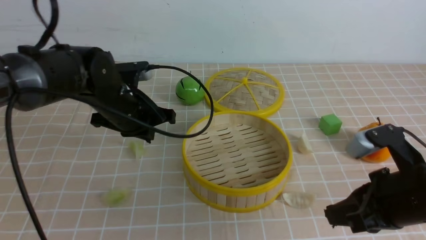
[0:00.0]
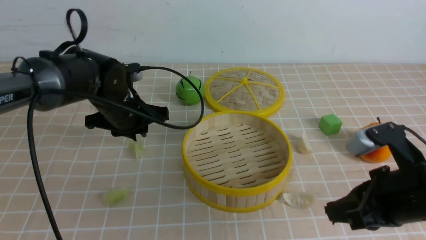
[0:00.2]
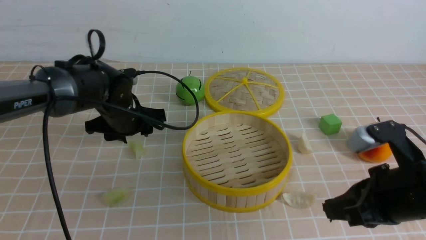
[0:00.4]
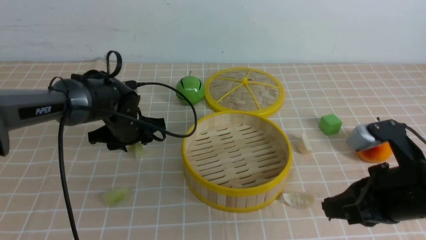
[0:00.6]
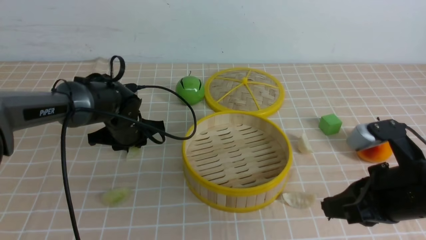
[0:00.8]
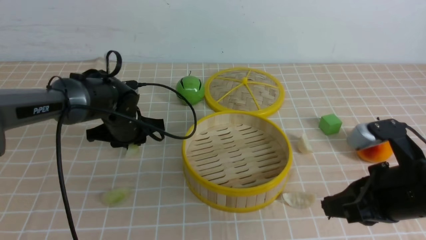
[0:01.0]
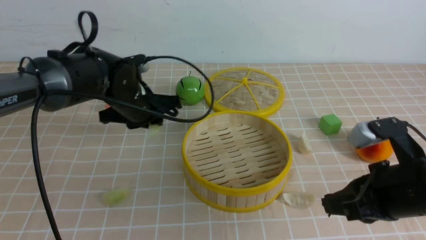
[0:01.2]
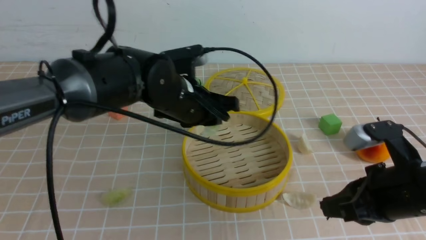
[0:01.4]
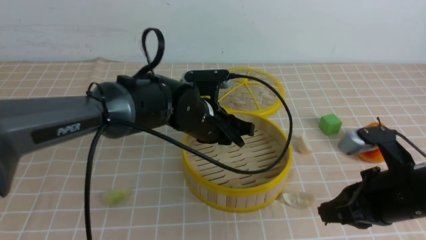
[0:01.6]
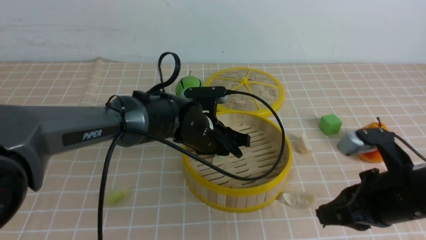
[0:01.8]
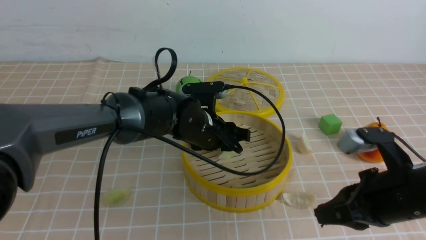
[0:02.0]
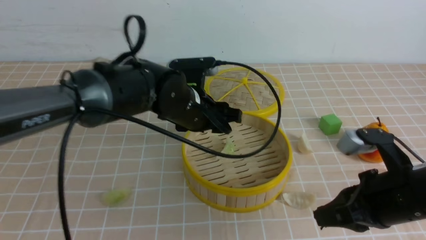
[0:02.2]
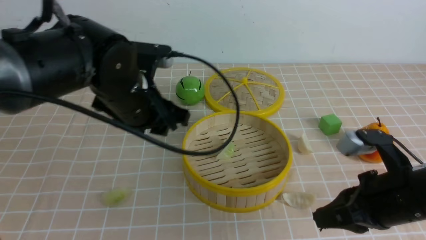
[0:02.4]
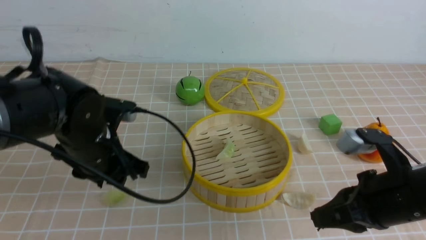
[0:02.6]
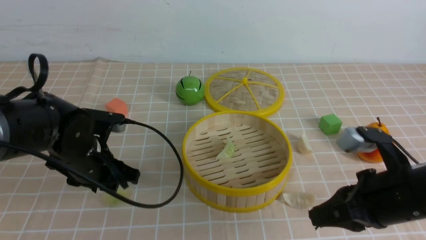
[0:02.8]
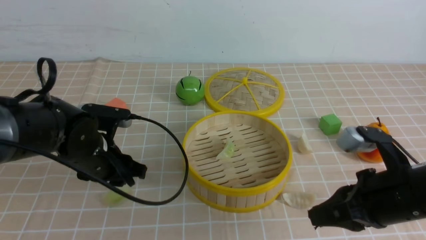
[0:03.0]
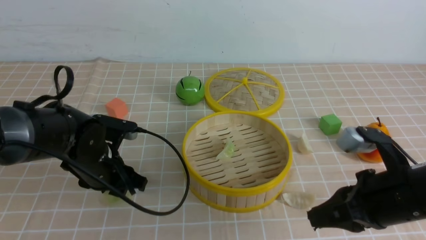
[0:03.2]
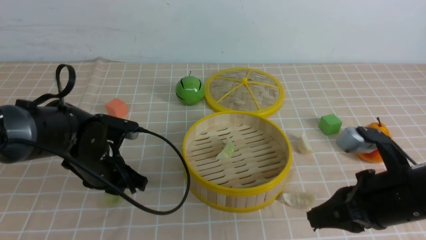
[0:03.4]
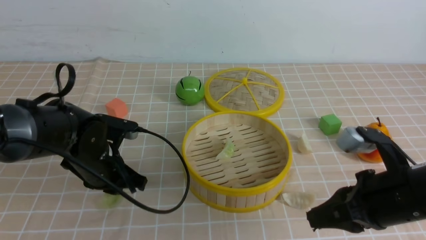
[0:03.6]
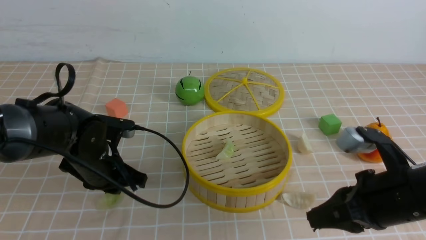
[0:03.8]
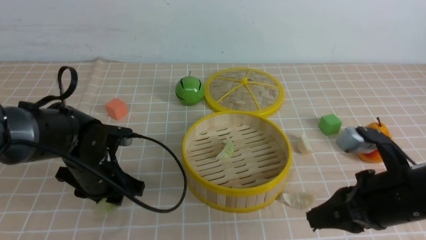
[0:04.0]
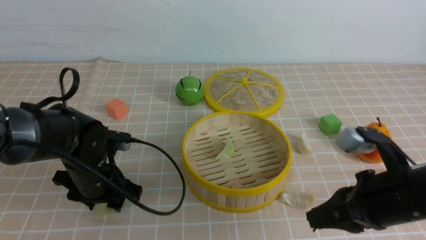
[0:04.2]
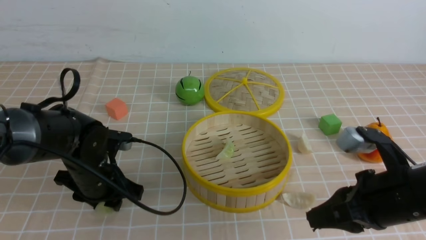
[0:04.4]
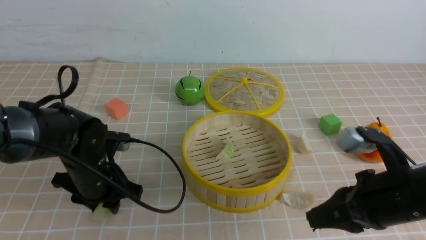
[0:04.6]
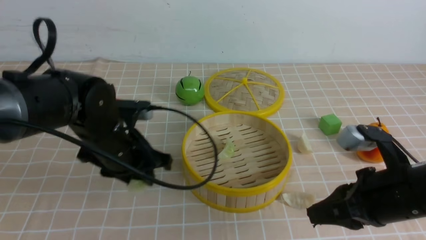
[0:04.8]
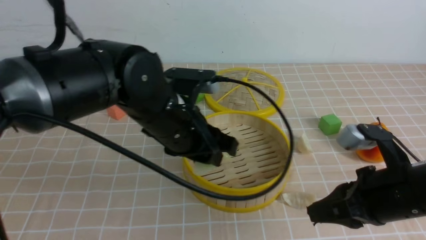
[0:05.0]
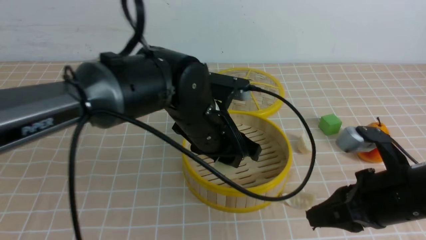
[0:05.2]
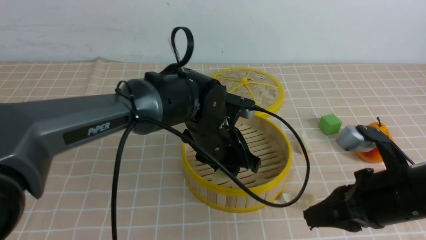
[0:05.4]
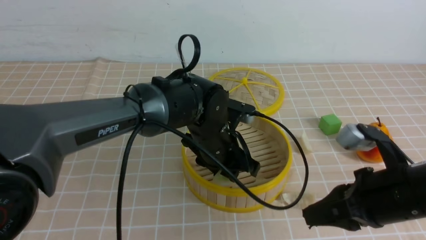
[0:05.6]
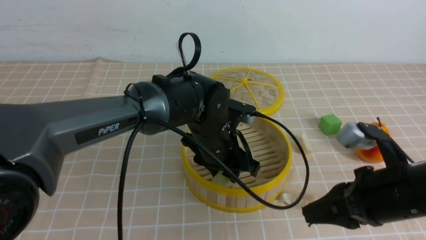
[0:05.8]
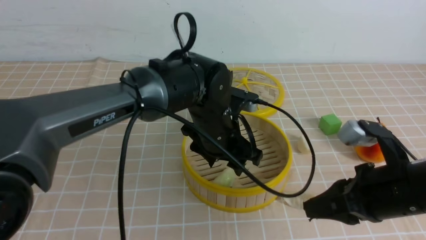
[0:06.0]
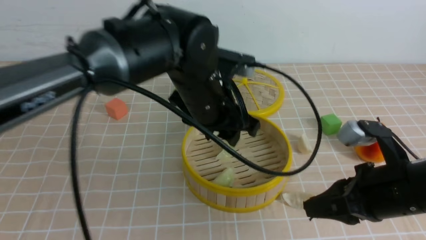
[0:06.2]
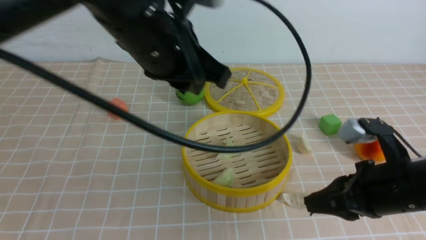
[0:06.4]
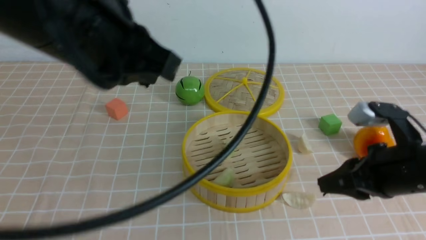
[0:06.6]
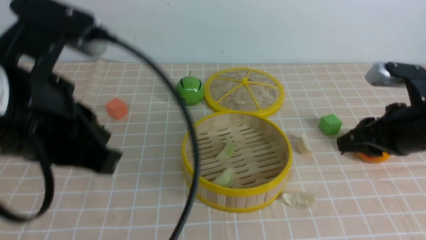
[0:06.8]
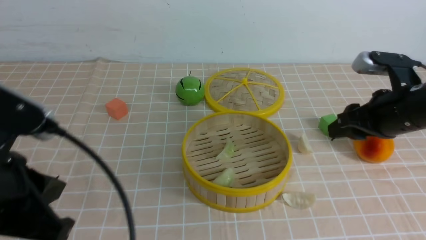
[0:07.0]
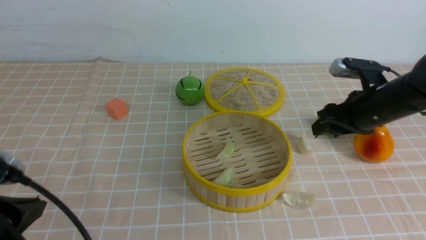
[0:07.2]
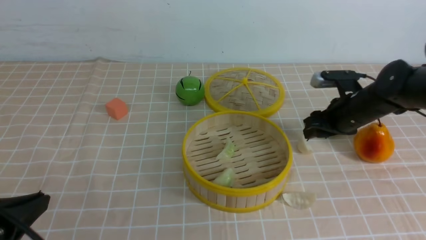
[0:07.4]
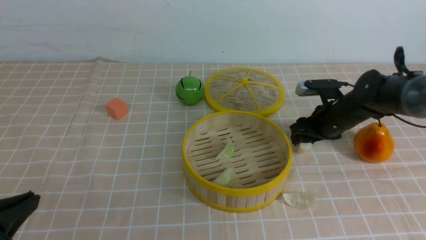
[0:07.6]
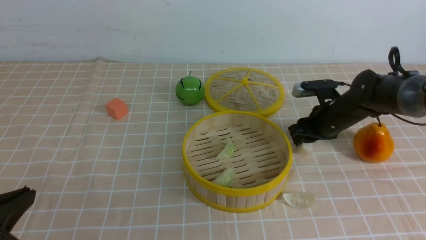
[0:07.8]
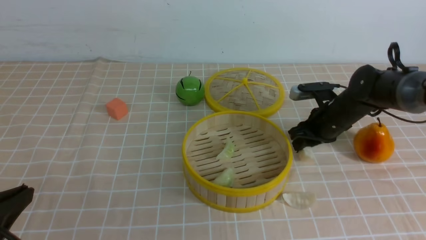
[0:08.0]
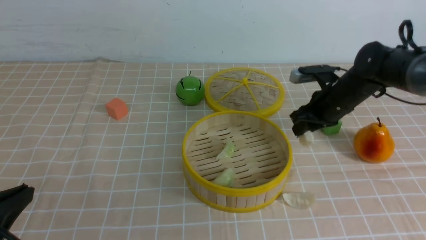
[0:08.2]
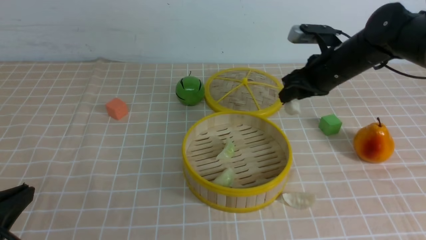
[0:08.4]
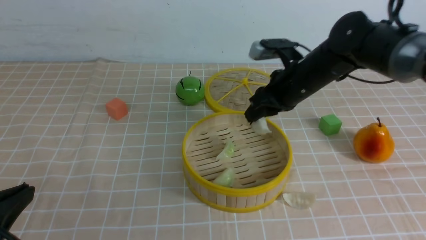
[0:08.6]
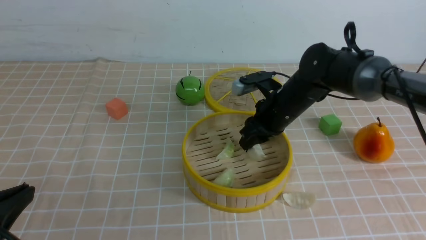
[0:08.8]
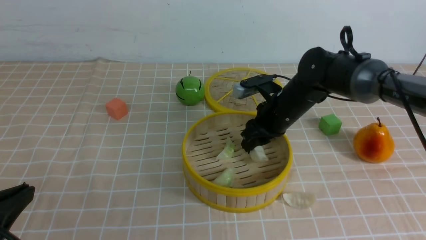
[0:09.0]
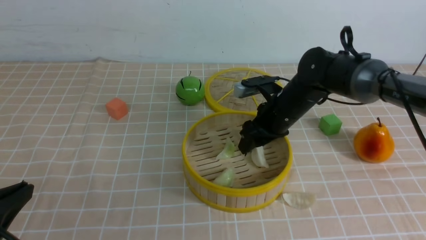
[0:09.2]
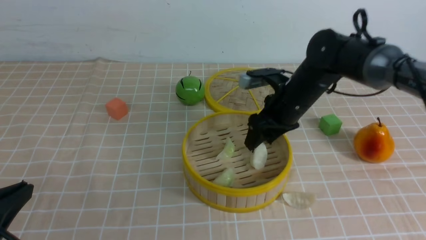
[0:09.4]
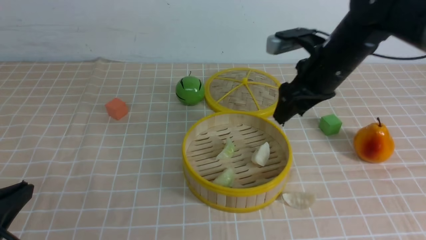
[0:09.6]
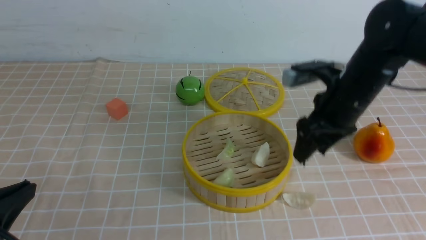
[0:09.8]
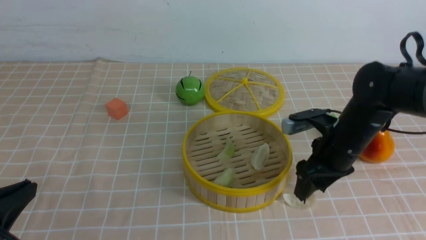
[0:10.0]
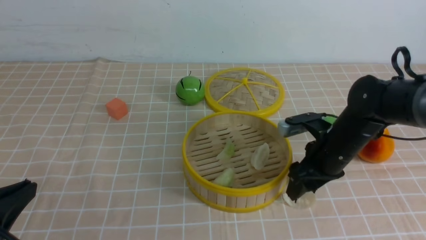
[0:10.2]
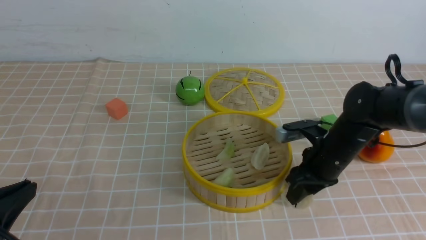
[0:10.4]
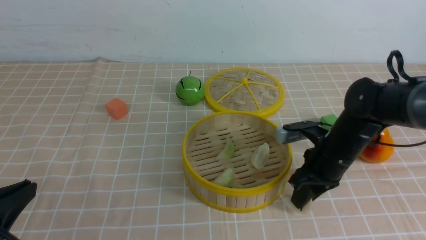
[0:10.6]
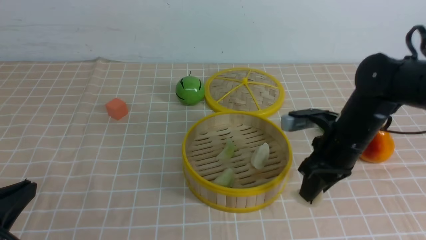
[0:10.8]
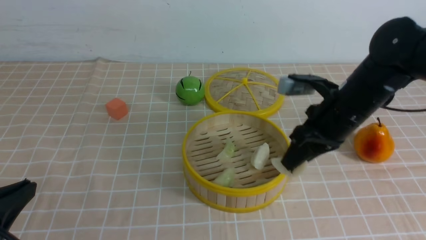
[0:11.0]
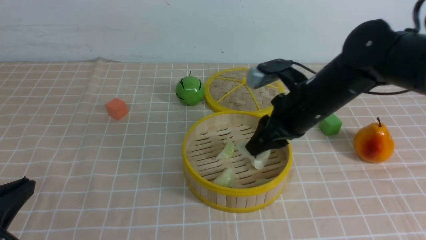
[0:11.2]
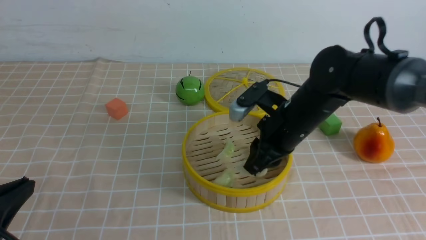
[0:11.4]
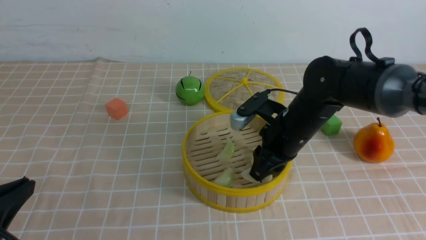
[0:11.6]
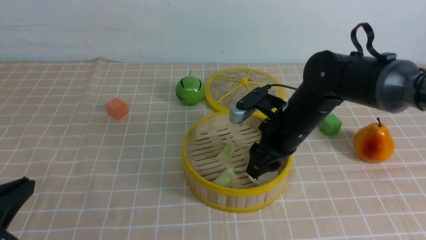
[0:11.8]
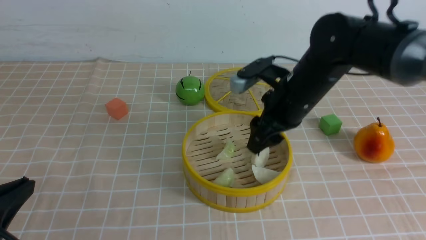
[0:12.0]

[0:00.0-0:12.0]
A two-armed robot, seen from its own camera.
Task of the whole recording: put the dumplings into the steamer on the table with the brown tablecloth.
Step, 0:01.0 to 0:02.2: use the left arm to put the dumpling into the steamer.
Step, 0:02.4 to 0:04.4: use the left arm to grab a dumpling.
Step, 0:04.6 to 0:06.0: use the left arm to put the dumpling into the steamer.
Step, 0:06.2 to 0:08.0: use the right arm to grab a dumpling.
Step, 0:08.2 to 0:09.2: use the right arm to put the dumpling into the steamer.
Step, 0:09.6 to 0:10.4: use the right arm to grab a dumpling.
Step, 0:10.6 to 0:12.0: use the right arm to put the dumpling into the steamer.
0:00.0 to 0:01.6: The left gripper heads to the right, covering approximately 10 cm, and opens, then closes again.
0:01.6 to 0:03.0: The left gripper shifts approximately 15 cm to the left.
0:03.0 to 0:04.4: The left gripper closes and opens again.
0:04.4 to 0:06.0: The left gripper goes some 20 cm to the right and upward.
0:06.0 to 0:07.6: The right gripper goes about 25 cm forward, and opens up, while the left gripper goes about 35 cm backward and to the left, and closes its fingers.
0:07.6 to 0:09.0: The right gripper is displaced to the left by some 10 cm.
0:09.0 to 0:10.4: The right gripper travels backward and to the right by roughly 10 cm, and moves roughly 10 cm upward and comes back.
0:10.4 to 0:12.0: The right gripper travels upward and to the left by some 15 cm.

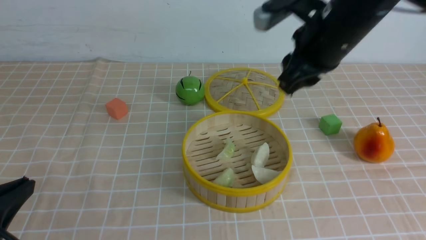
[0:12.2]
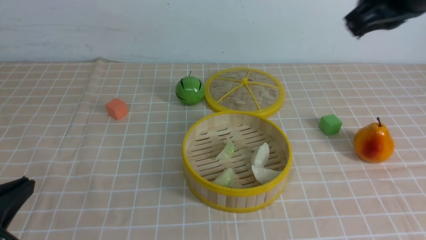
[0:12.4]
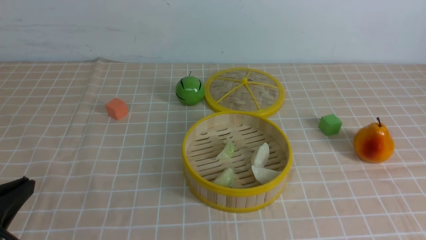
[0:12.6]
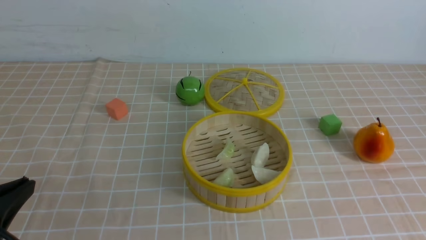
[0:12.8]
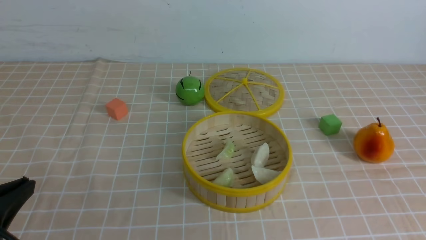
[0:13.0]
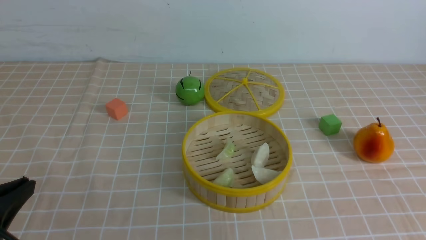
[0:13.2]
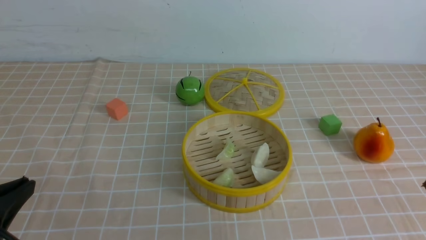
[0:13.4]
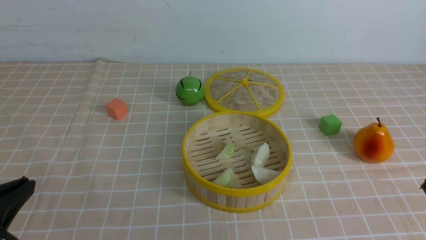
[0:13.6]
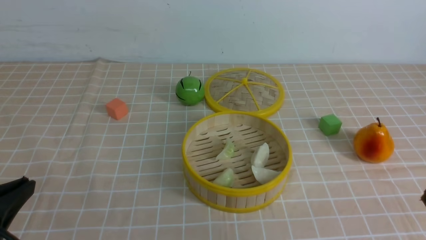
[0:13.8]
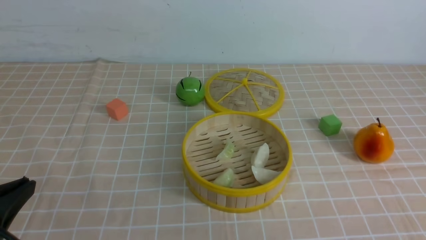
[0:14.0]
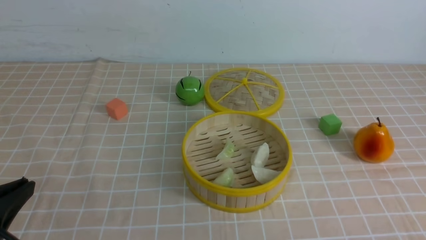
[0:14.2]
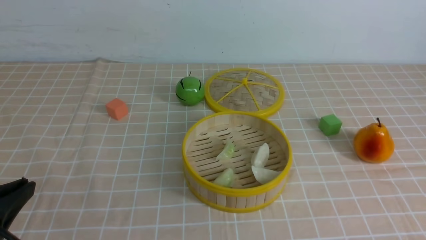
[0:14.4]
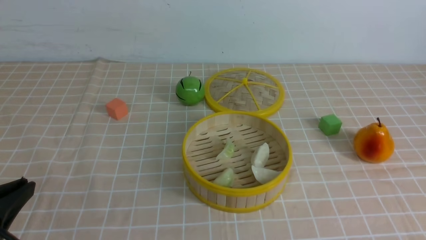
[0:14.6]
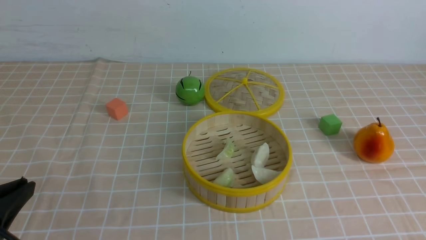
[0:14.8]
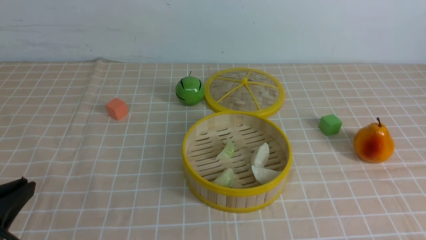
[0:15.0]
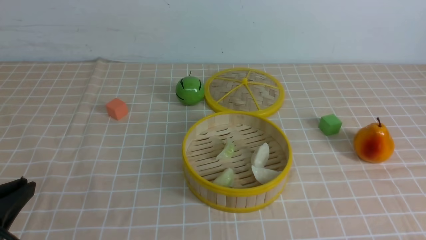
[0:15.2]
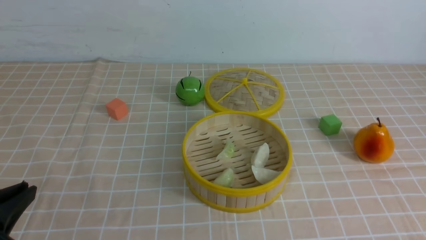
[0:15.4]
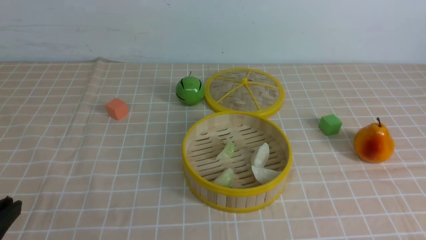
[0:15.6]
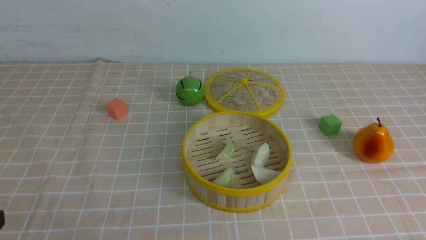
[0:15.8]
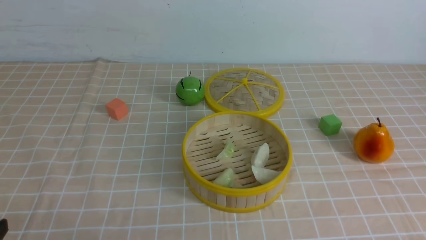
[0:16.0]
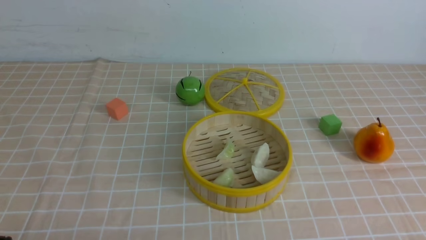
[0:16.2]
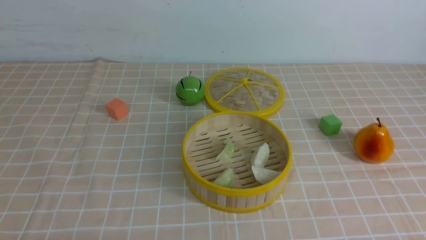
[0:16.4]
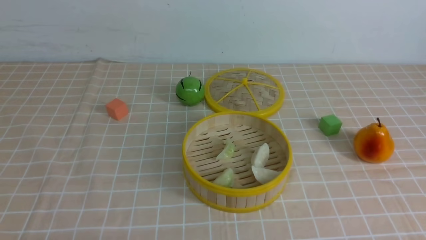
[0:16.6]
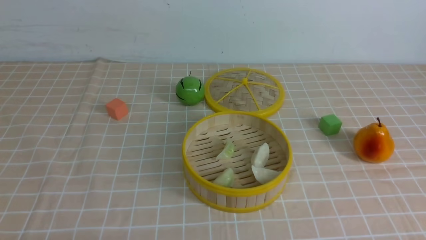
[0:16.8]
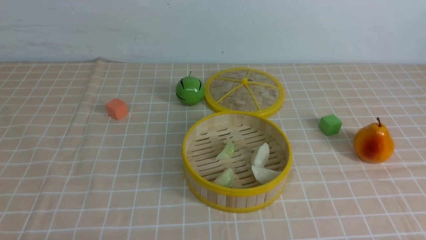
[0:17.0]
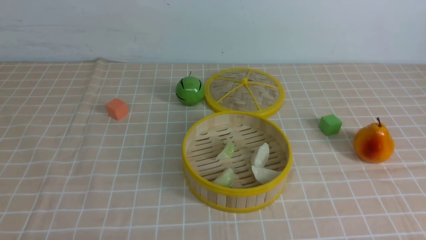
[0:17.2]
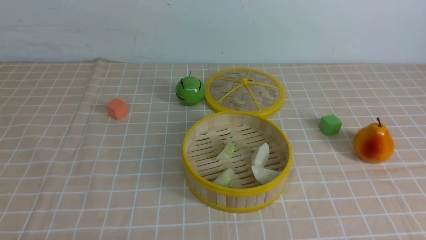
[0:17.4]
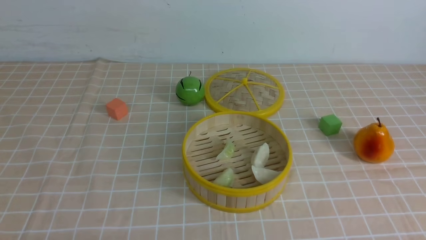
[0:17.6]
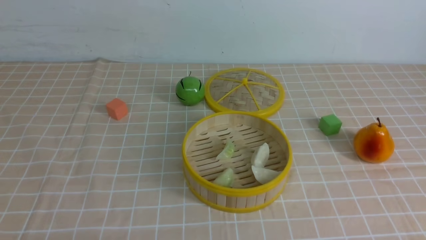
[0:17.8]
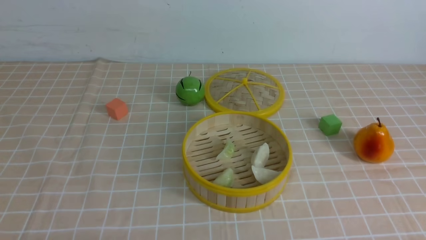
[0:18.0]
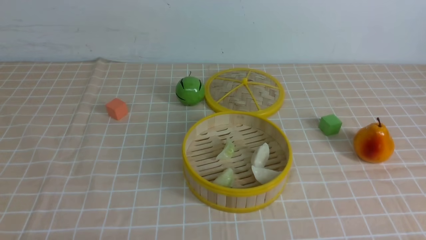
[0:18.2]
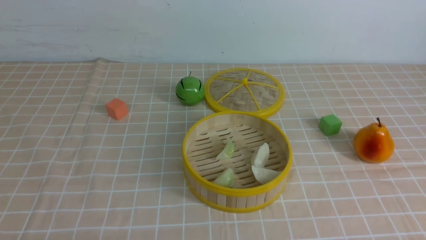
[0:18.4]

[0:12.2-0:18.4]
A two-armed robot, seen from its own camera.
Task of the whole recording: put the dumplings into the steamer on the table with the brown tablecloth.
0:12.2 to 0:13.8: The right gripper goes about 35 cm backward, downward and to the right, and closes.
0:15.4 to 0:16.8: The left gripper moves downward, about 10 cm.
0:16.8 to 0:18.4: The two grippers keep their place.
